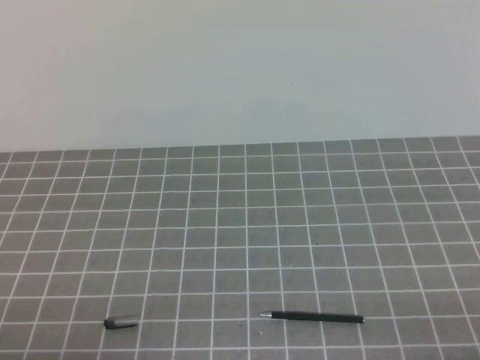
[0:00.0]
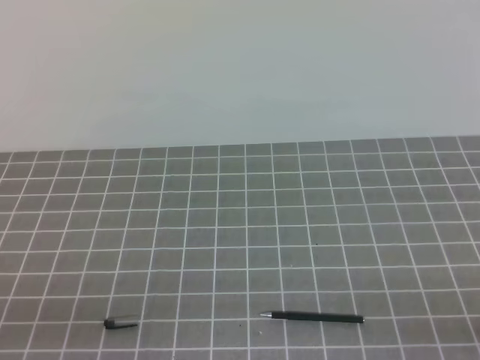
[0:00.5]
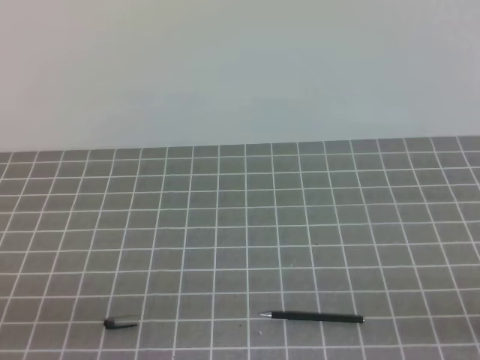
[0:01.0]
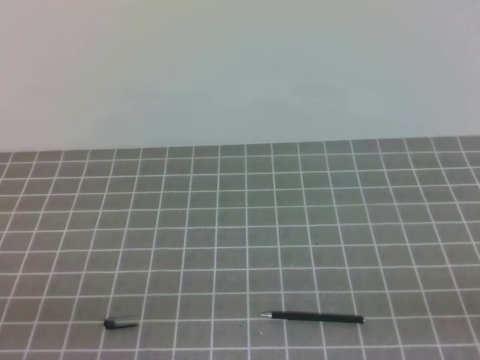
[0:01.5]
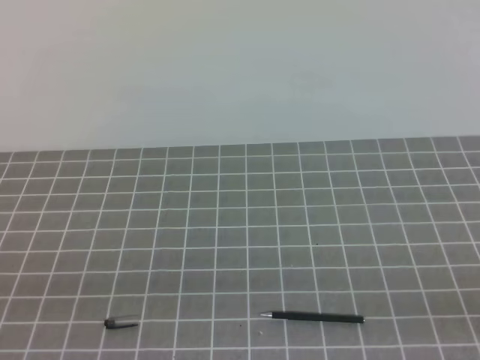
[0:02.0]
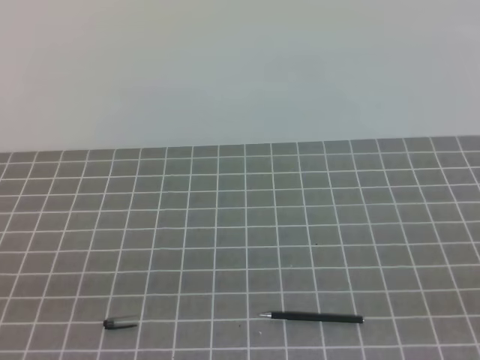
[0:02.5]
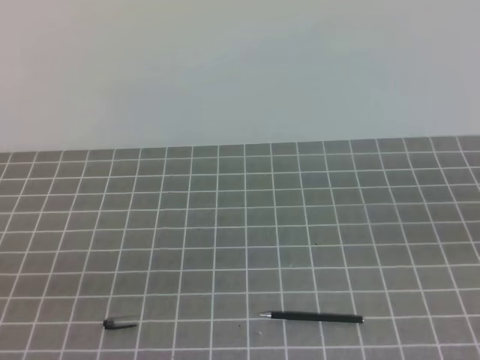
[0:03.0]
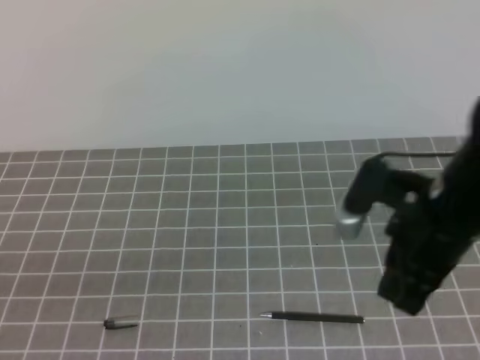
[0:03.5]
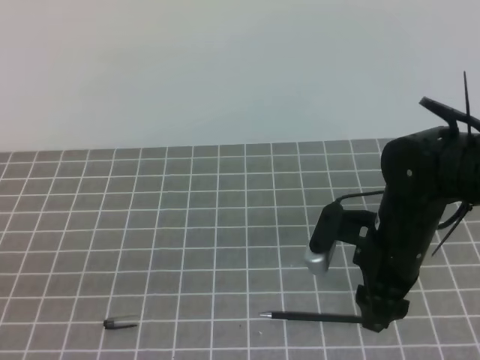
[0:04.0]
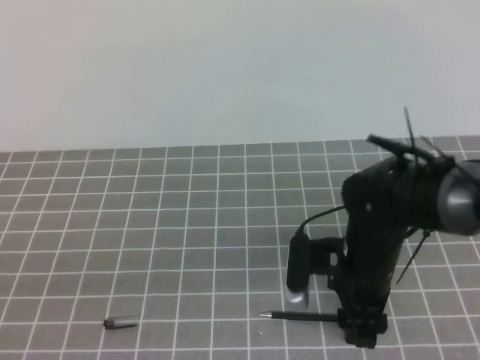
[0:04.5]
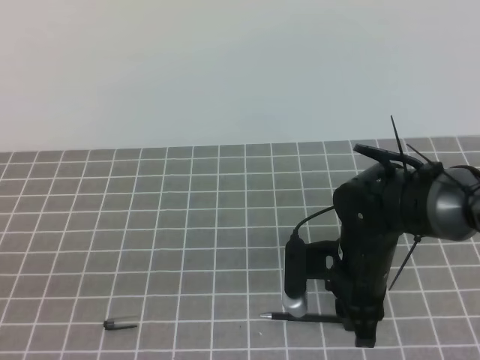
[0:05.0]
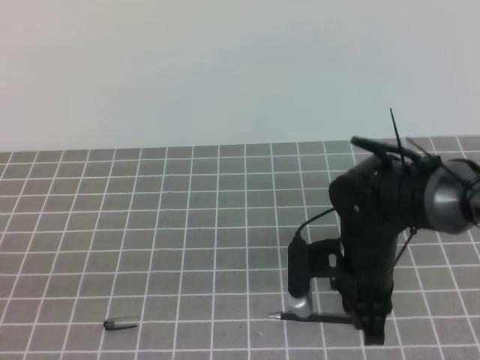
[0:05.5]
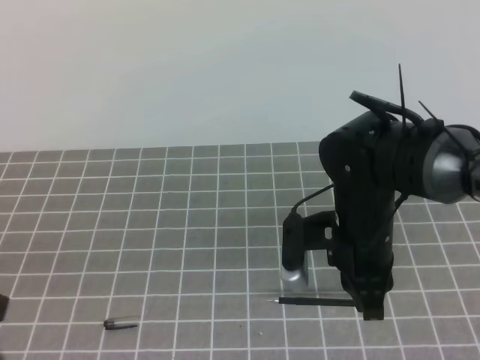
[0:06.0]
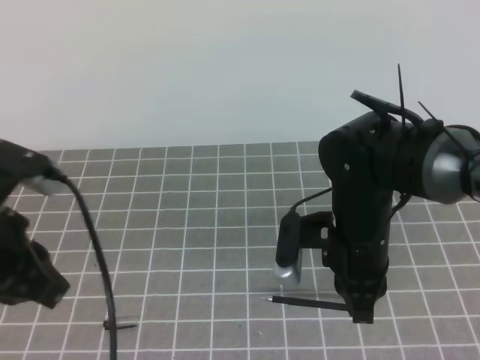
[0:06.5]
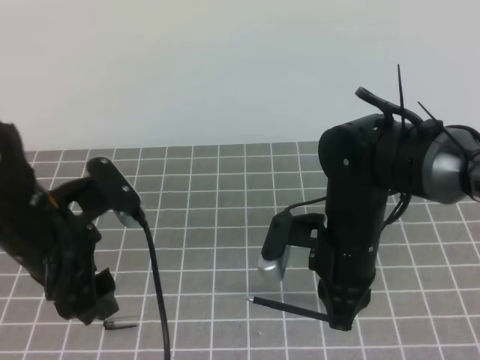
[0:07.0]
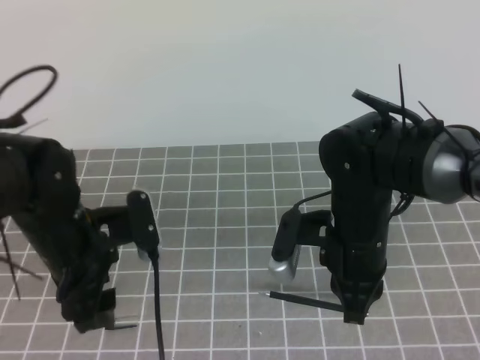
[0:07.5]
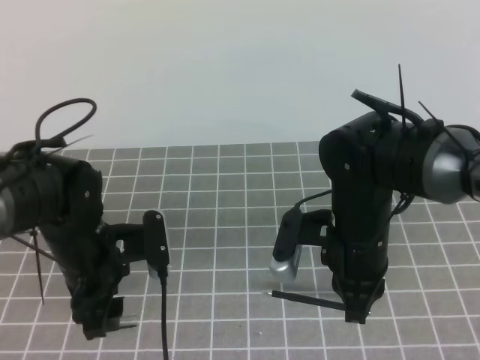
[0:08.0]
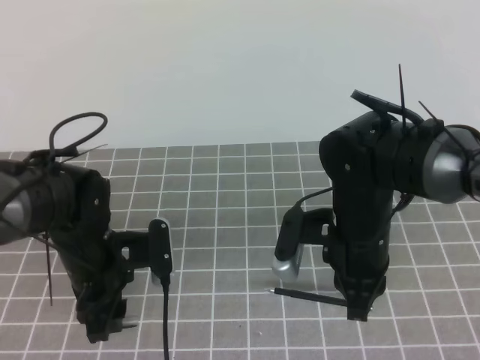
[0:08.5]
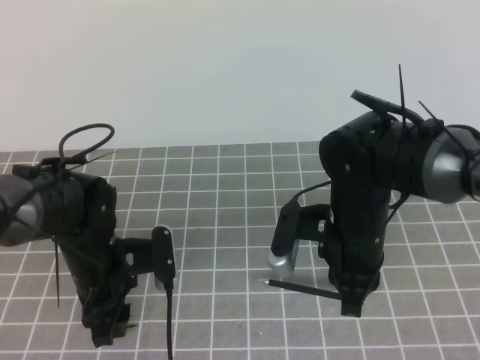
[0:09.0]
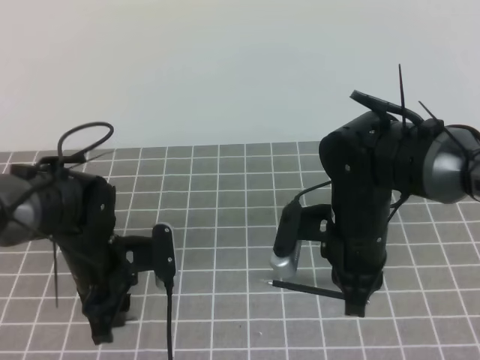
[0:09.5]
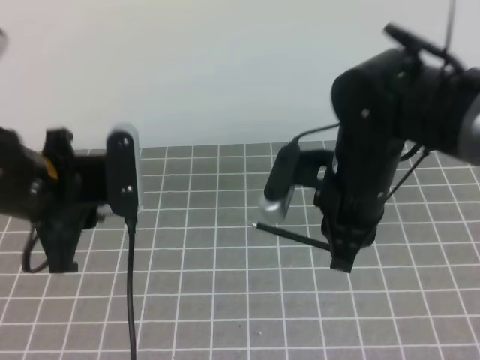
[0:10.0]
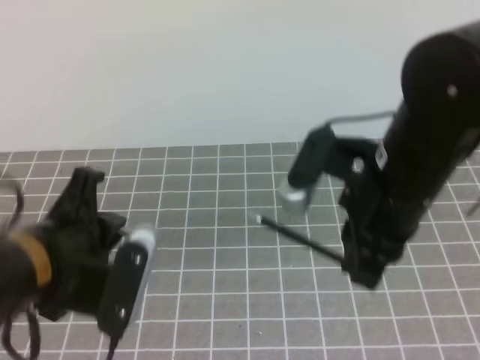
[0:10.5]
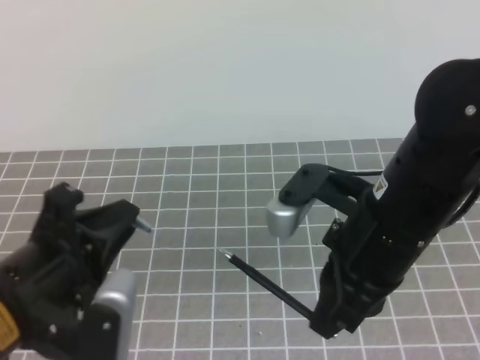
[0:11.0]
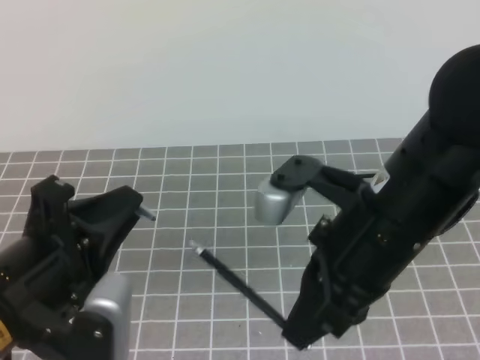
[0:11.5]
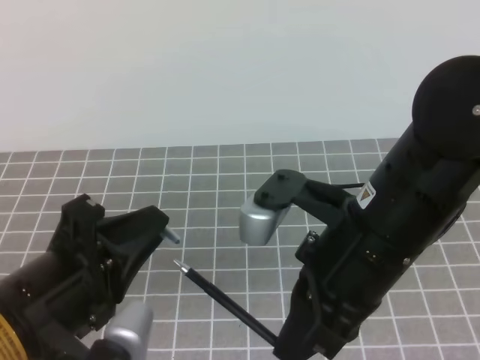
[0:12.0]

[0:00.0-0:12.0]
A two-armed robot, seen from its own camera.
Task of the whole recording: on the grey tablecloth, hold the pen cap in one hand and the pen in the other, then cover the pen cap.
0:02.0 to 0:04.0: The right gripper shifts roughly 30 cm forward and to the left, and opens up.
0:04.0 to 0:06.0: The right gripper closes, while the left gripper moves upward, some 5 cm.
0:06.0 to 0:08.0: The left gripper is displaced forward and downward by some 25 cm, and opens up.
0:08.0 to 0:10.0: The left gripper closes.
0:10.0 to 0:12.0: The right gripper travels backward and upward by approximately 15 cm. The left gripper shifts approximately 15 cm backward.

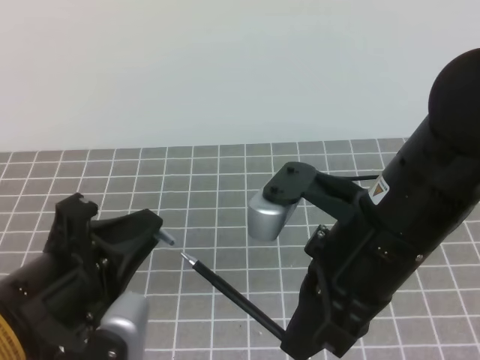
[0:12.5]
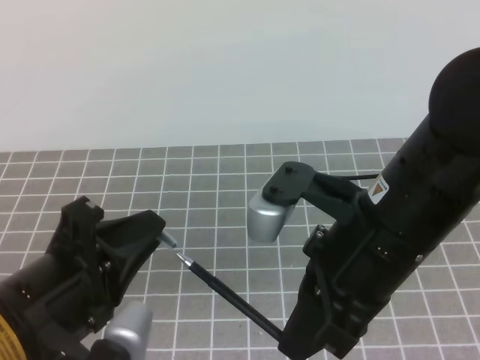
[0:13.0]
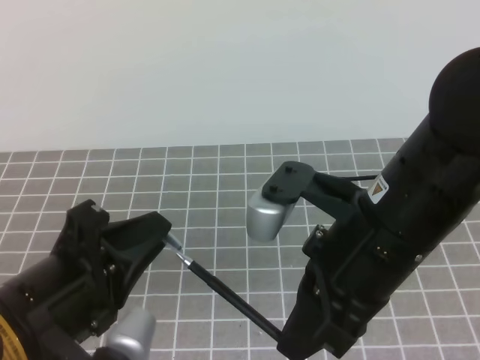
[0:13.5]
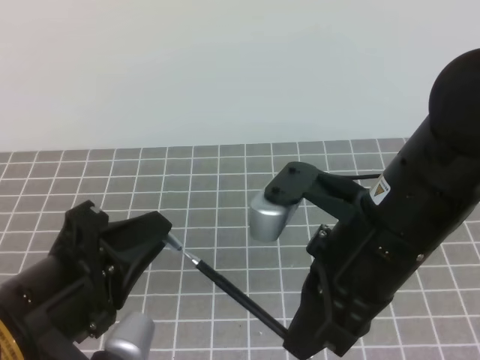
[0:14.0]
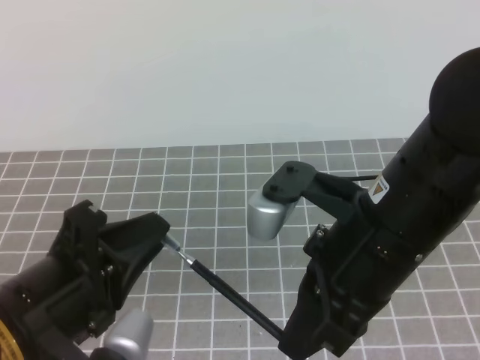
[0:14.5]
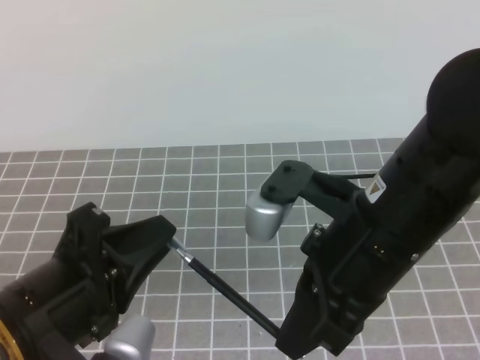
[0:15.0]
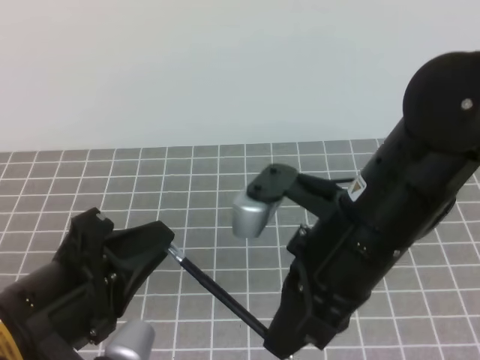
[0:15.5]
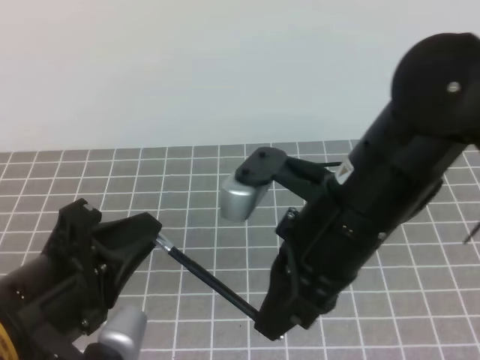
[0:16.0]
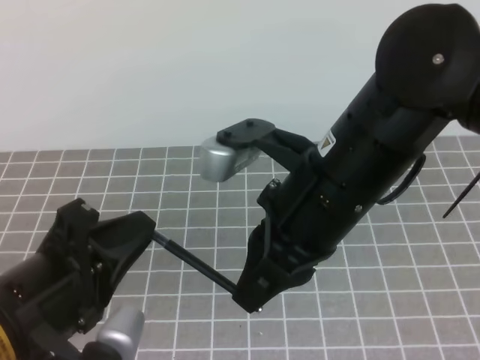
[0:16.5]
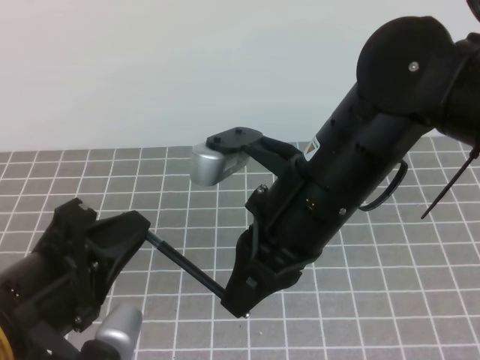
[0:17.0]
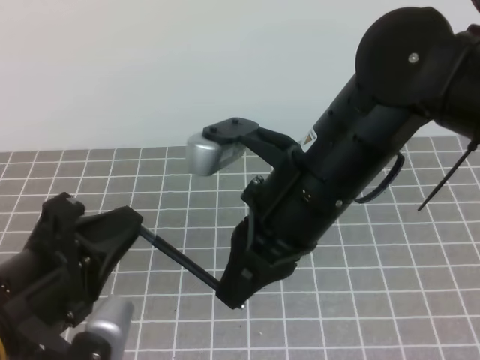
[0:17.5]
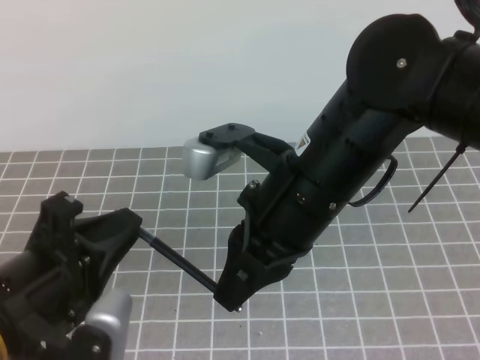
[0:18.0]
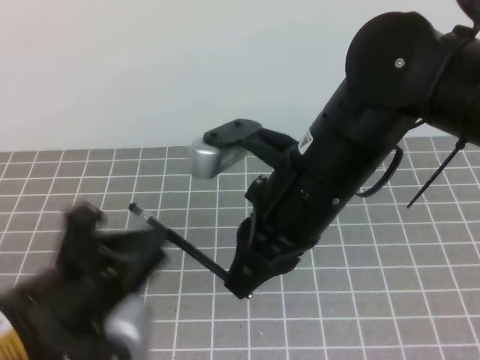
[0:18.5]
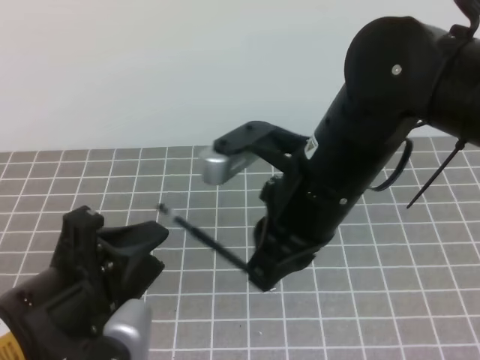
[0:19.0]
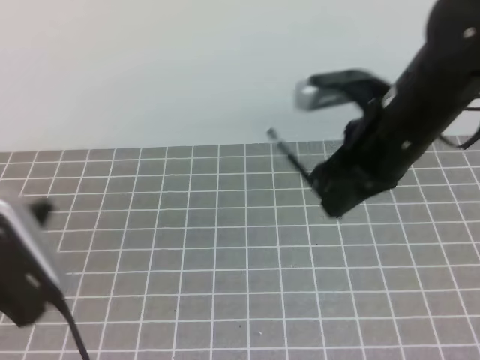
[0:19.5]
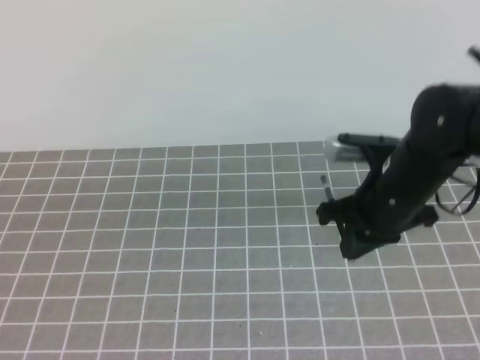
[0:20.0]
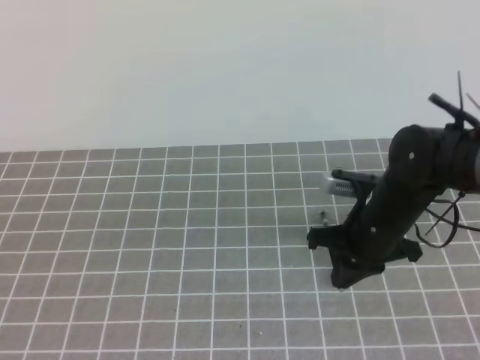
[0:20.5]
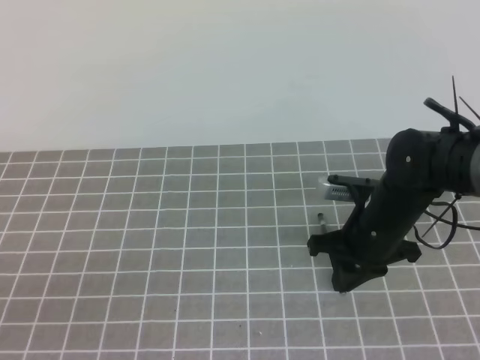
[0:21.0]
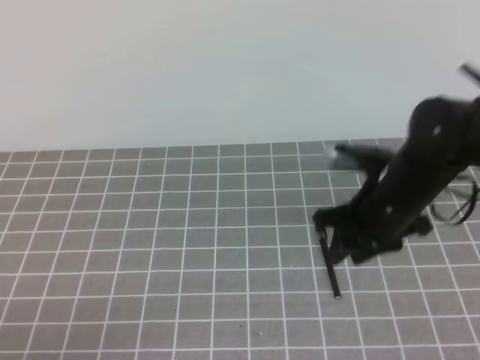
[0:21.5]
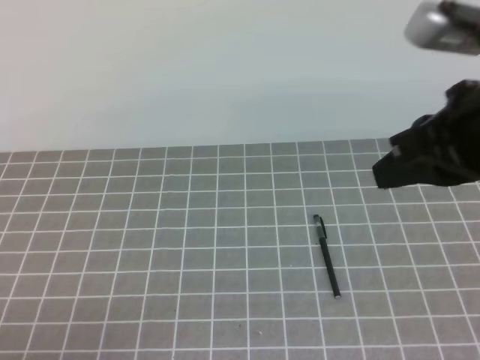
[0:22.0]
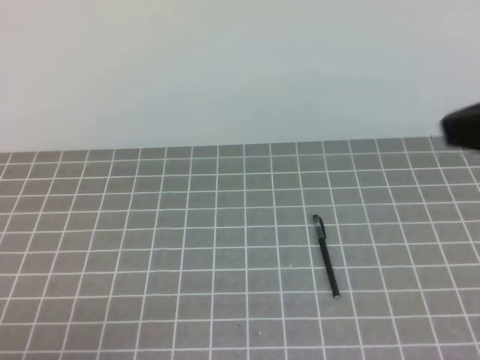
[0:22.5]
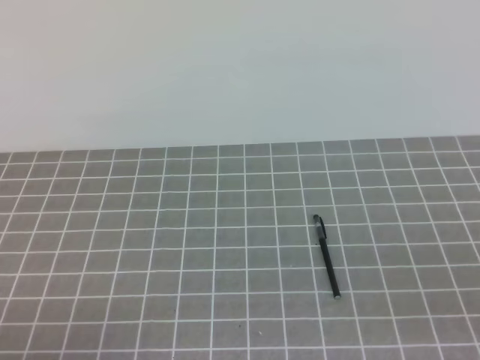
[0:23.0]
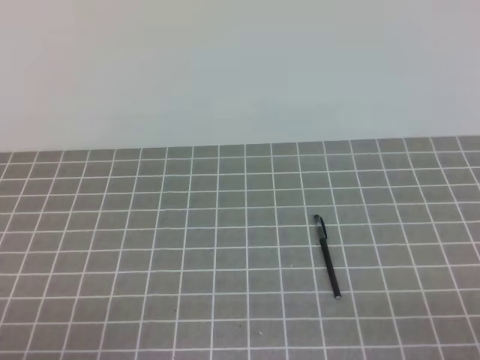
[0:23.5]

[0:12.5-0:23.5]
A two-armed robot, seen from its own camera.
Task of the whole recording: on the grey tablecloth, hold the pen cap in one hand and the pen in the other, then cover the pen cap.
Step, 0:12.5 to 0:23.5: Put the cap on the pen.
0:12.5 to 0:14.5: Both grippers stay about where they are.
0:18.0 to 0:20.0: The left gripper heads to the left, covering roughly 10 cm, and opens and closes again; the right gripper goes some 15 cm to the right, forward and downward.
0:20.0 to 0:21.5: The left gripper moves downward and backward, approximately 15 cm. The right gripper travels downward by some 10 cm, and opens up.
0:21.5 to 0:23.5: The right gripper shifts some 35 cm backward and to the right, and closes its fingers.
